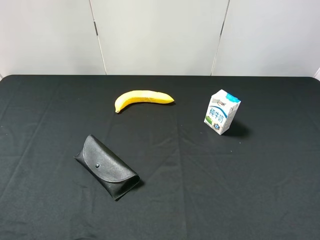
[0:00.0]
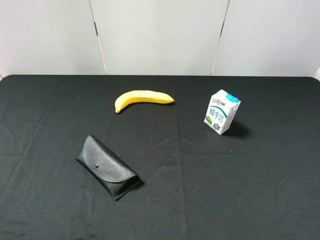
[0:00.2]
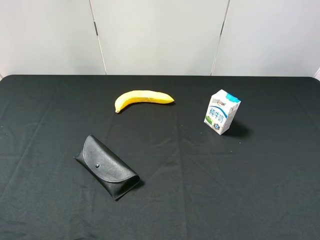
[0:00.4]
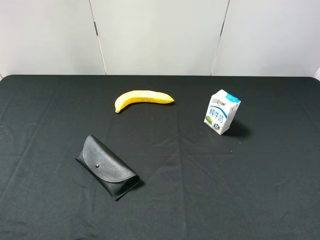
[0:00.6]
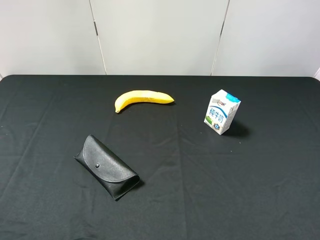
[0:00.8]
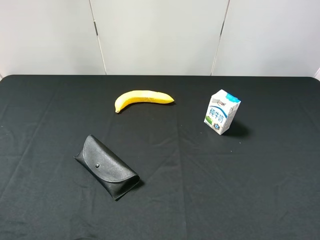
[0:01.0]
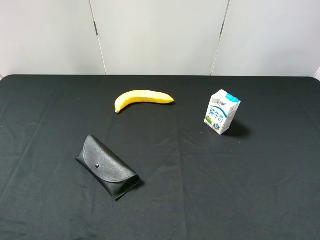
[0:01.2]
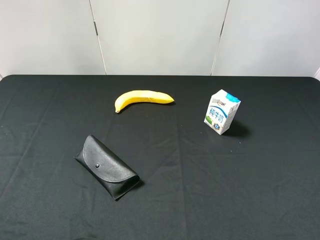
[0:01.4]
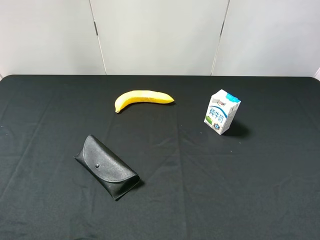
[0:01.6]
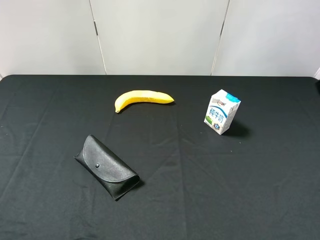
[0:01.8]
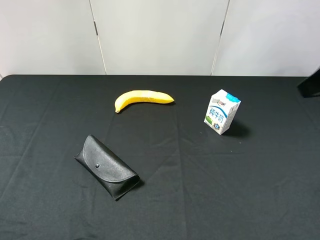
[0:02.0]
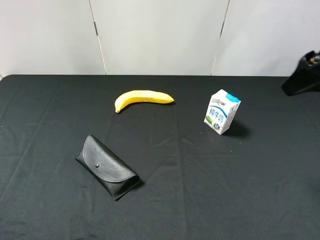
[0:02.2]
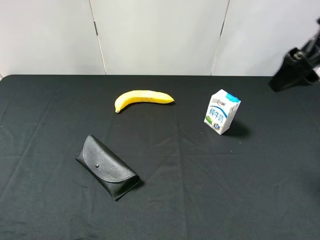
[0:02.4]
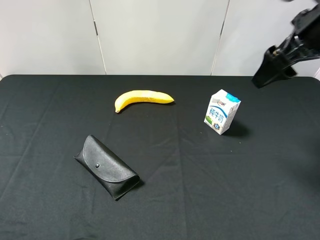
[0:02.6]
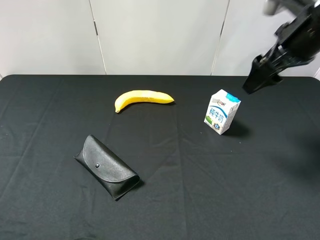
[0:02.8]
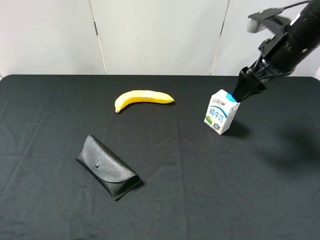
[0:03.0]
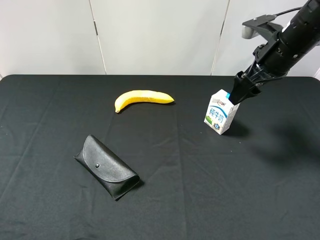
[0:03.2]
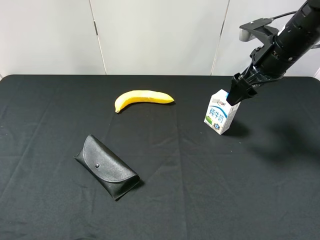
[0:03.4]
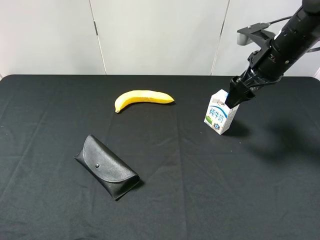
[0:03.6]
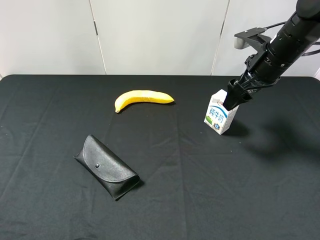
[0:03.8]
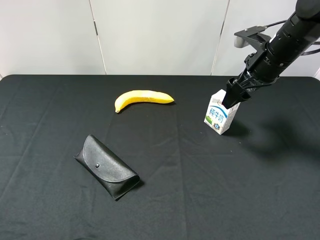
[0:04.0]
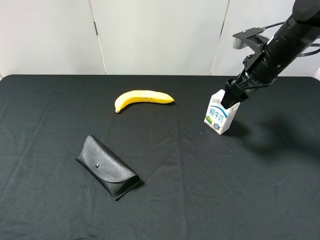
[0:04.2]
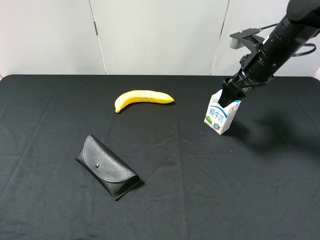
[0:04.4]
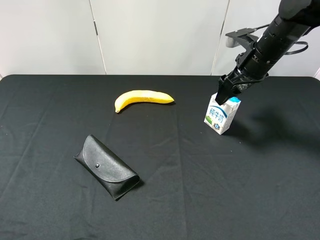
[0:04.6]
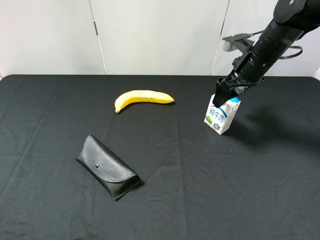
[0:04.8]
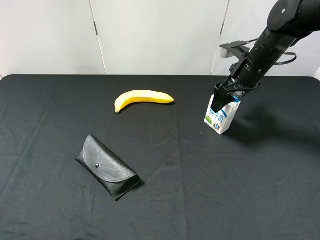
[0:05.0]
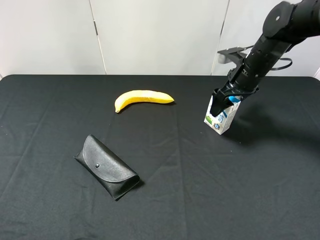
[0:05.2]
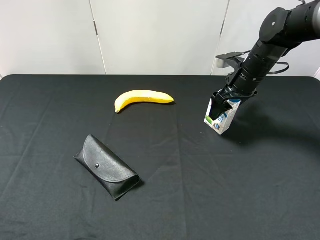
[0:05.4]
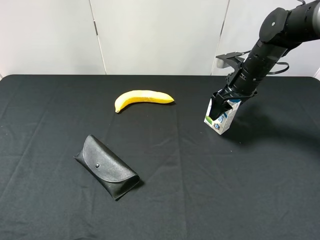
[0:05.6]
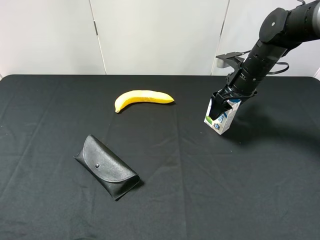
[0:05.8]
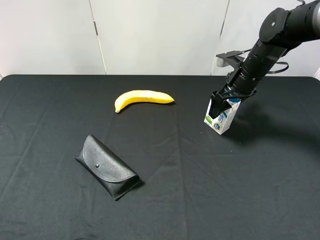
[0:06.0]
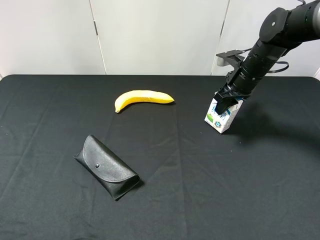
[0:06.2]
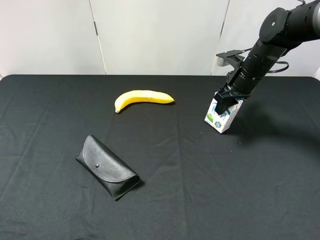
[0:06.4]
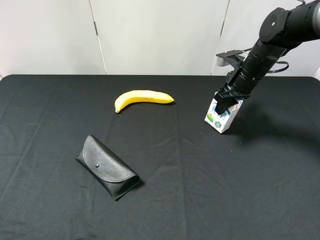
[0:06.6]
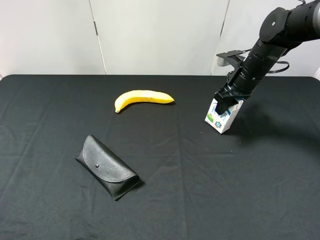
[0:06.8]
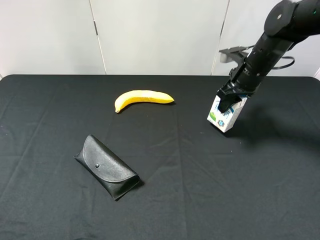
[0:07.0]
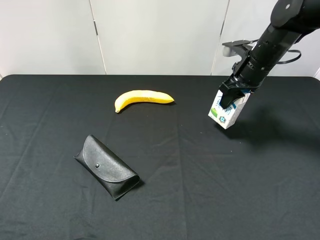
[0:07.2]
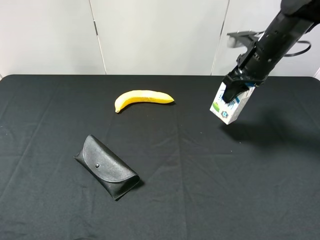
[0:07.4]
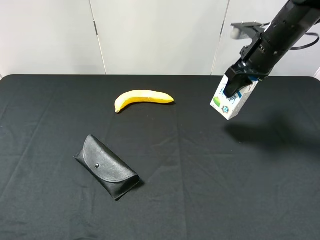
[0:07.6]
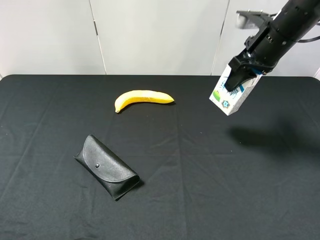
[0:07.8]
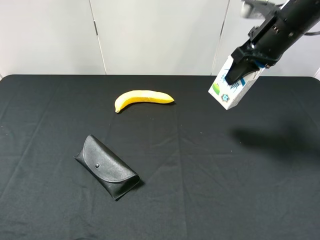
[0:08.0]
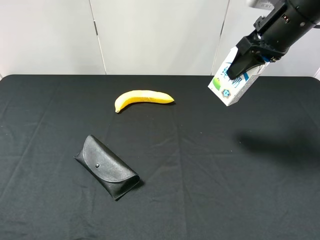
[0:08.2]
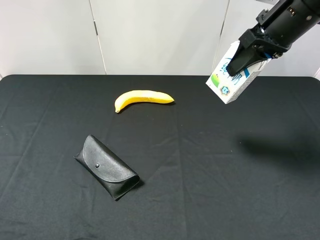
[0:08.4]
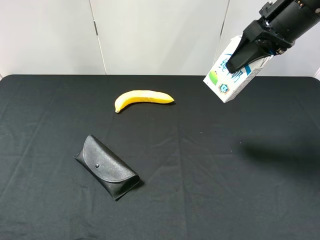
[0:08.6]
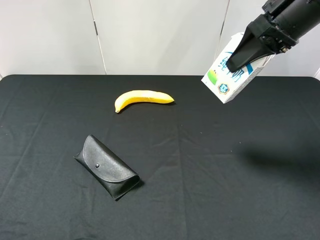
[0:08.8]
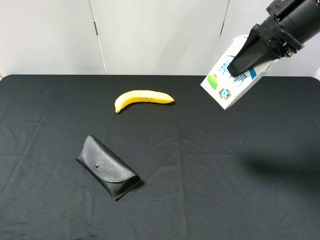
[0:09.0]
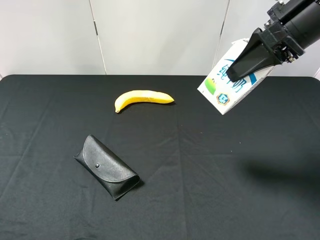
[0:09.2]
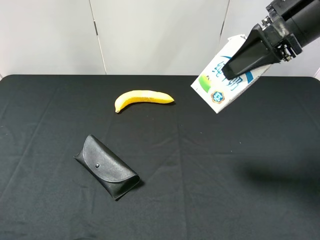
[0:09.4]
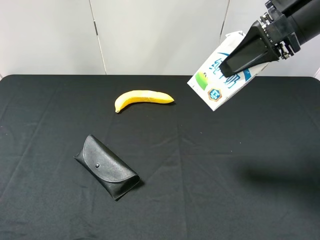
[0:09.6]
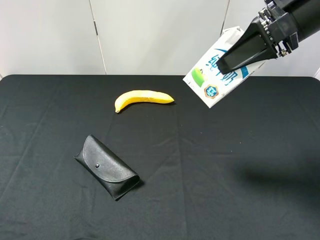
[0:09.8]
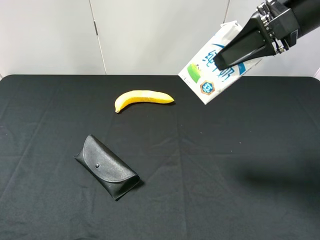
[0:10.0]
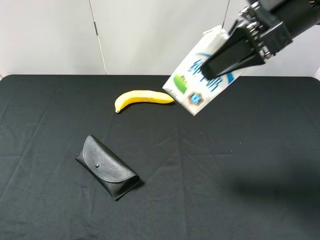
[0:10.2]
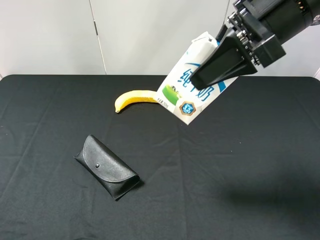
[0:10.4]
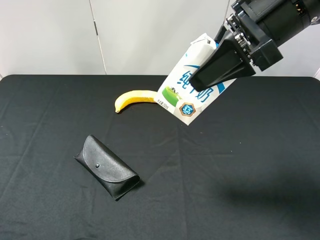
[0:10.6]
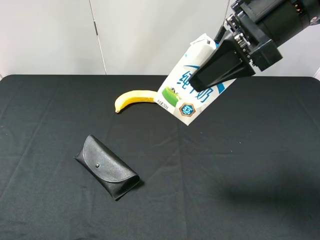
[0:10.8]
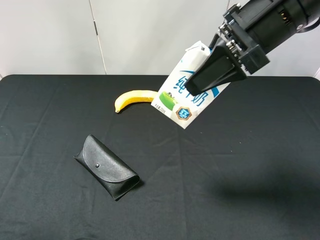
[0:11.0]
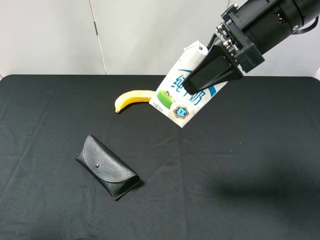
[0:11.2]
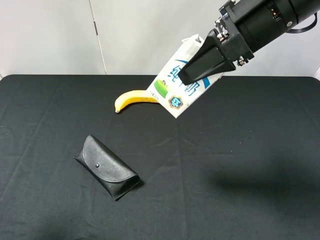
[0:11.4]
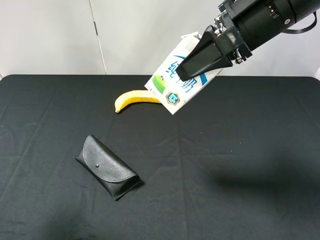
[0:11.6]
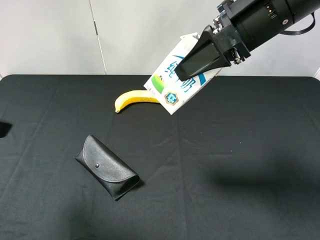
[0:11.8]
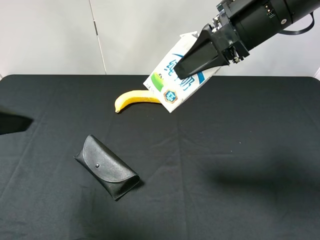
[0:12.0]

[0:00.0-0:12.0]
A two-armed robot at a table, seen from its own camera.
Task of the whole recording: use the right gripper to pick up the item and transfer it from the right gripper to the left gripper.
Step, 0:00.0 to 0:06.4: Use the right gripper to grab the milk on the right side of the table.
0:01.6 to 0:03.0: The right gripper goes approximately 25 cm forward and downward.
0:03.0 to 0:04.4: The right gripper shifts by about 5 cm.
0:04.4 to 0:06.0: The right gripper moves downward, approximately 5 cm.
0:06.0 to 0:07.6: The right gripper travels upward by roughly 10 cm, and closes its fingers.
0:07.6 to 0:09.0: The right gripper moves upward and backward, some 15 cm.
0:09.0 to 0:10.4: The right gripper shifts approximately 5 cm to the left.
0:10.4 to 0:12.0: The left gripper goes approximately 15 cm forward and to the right.

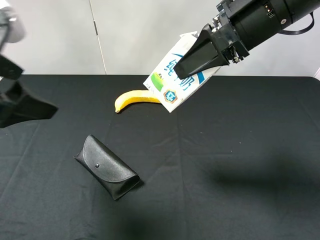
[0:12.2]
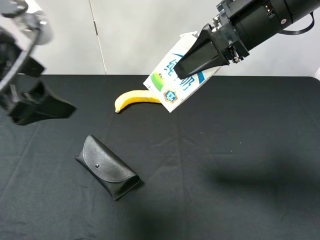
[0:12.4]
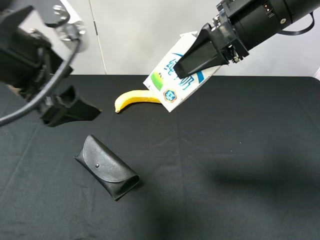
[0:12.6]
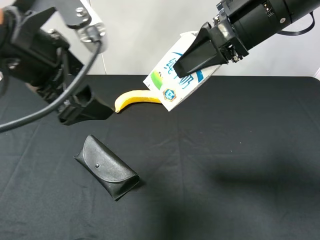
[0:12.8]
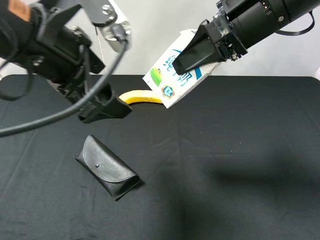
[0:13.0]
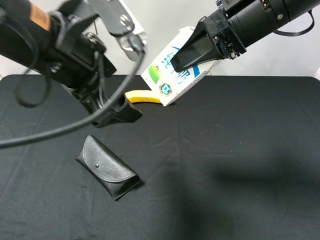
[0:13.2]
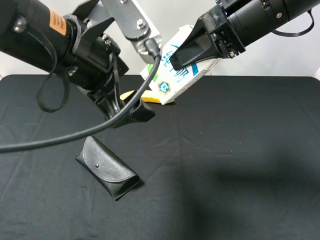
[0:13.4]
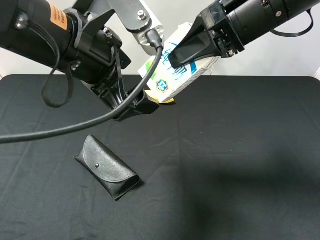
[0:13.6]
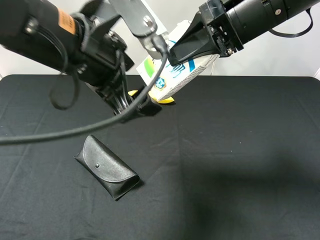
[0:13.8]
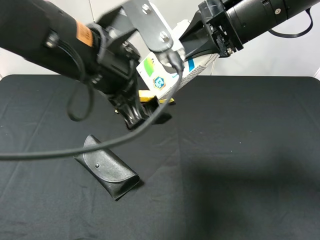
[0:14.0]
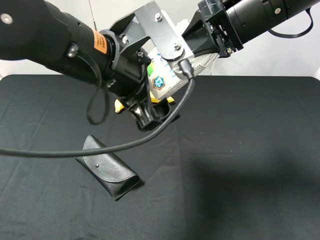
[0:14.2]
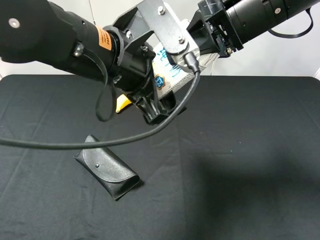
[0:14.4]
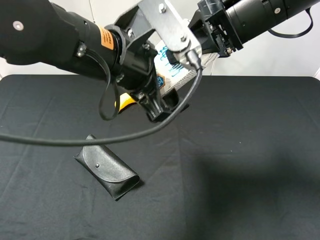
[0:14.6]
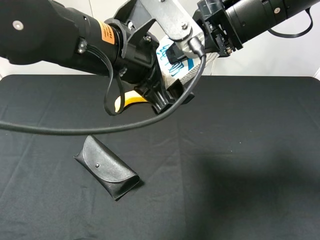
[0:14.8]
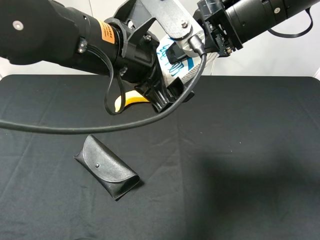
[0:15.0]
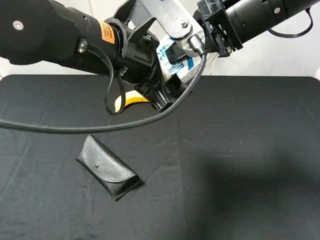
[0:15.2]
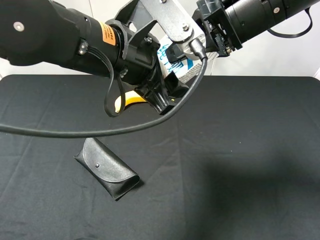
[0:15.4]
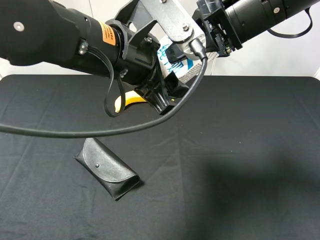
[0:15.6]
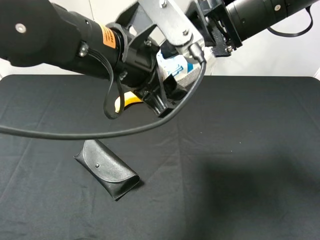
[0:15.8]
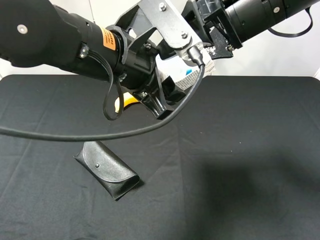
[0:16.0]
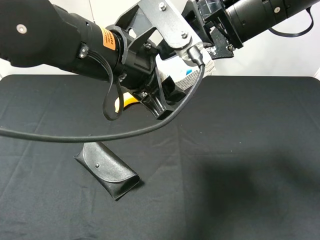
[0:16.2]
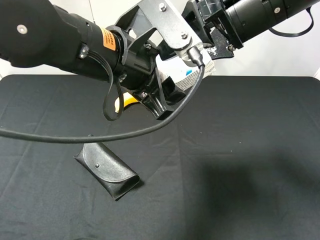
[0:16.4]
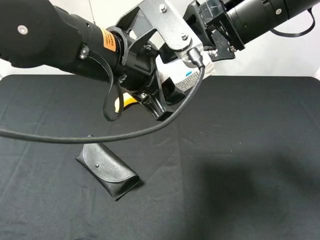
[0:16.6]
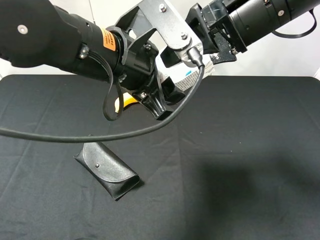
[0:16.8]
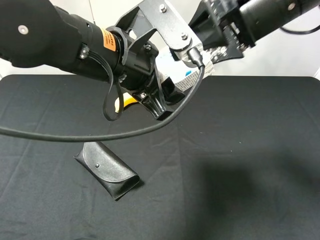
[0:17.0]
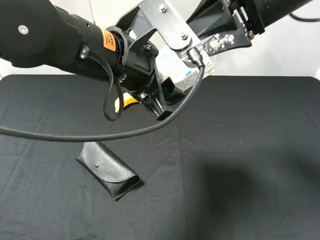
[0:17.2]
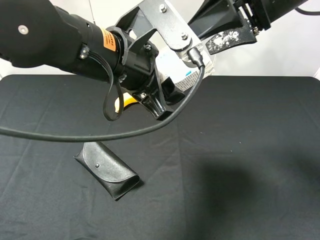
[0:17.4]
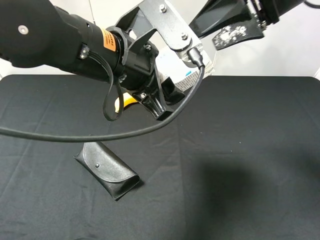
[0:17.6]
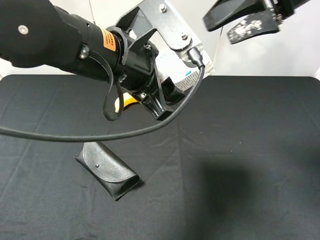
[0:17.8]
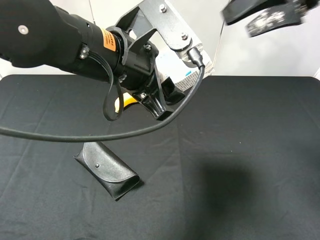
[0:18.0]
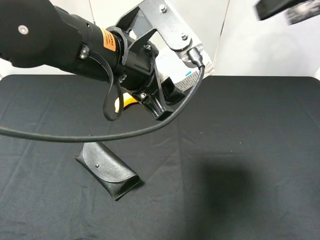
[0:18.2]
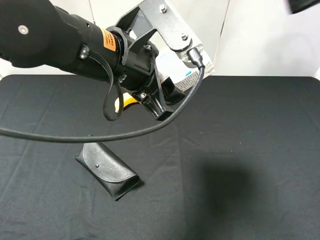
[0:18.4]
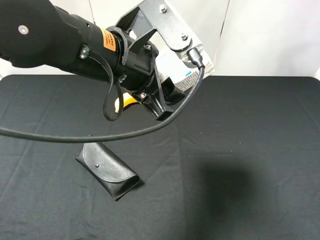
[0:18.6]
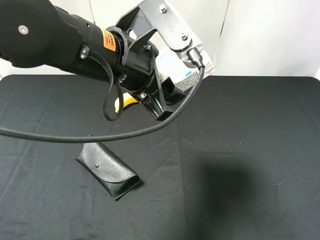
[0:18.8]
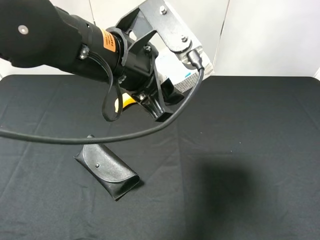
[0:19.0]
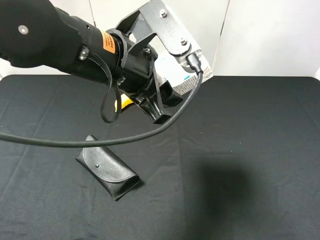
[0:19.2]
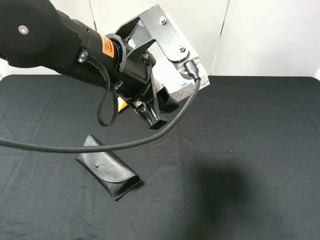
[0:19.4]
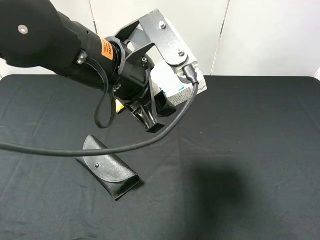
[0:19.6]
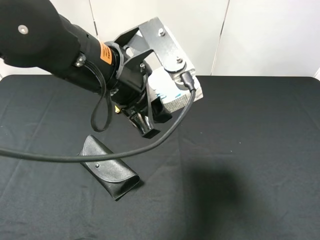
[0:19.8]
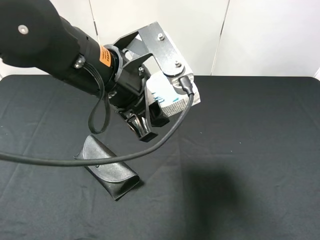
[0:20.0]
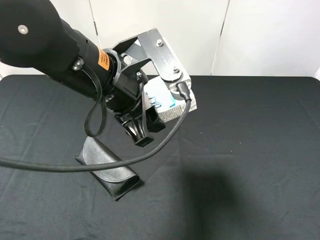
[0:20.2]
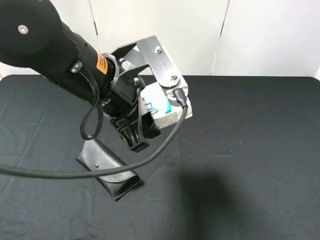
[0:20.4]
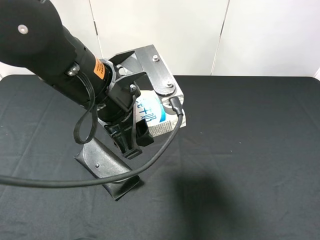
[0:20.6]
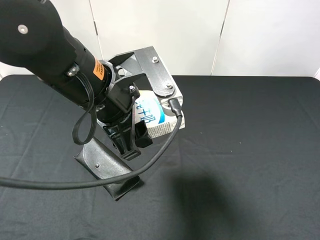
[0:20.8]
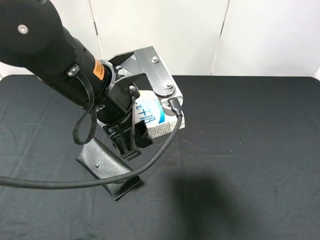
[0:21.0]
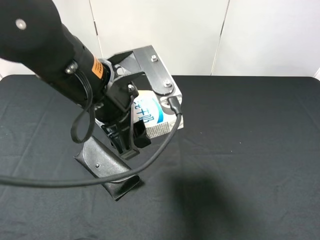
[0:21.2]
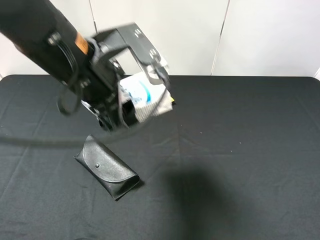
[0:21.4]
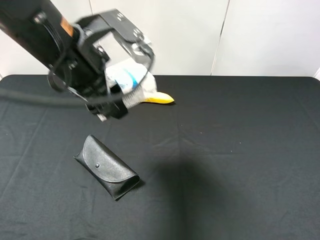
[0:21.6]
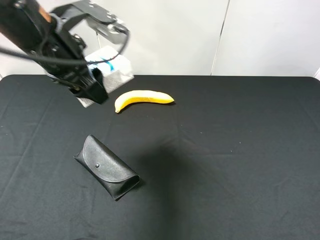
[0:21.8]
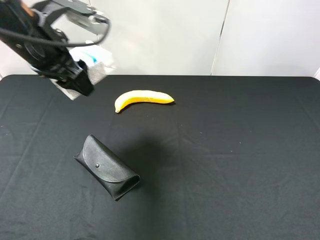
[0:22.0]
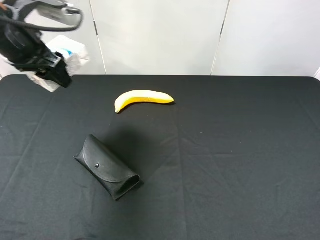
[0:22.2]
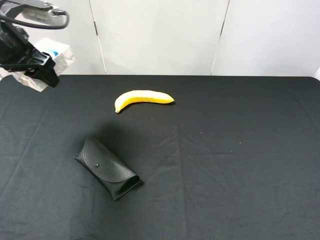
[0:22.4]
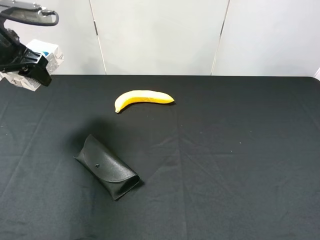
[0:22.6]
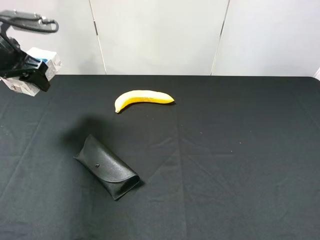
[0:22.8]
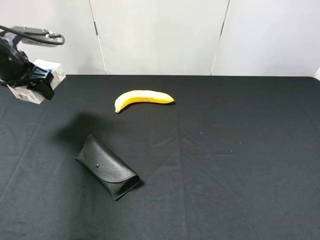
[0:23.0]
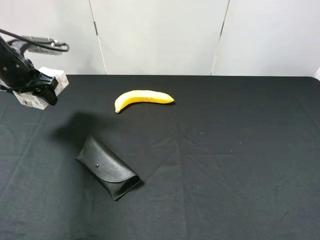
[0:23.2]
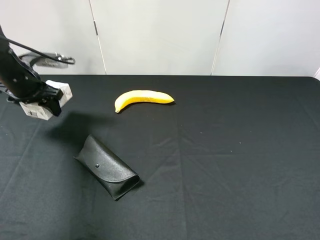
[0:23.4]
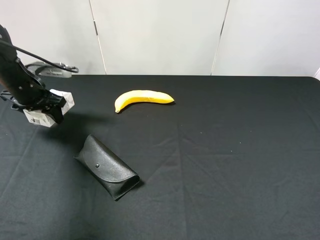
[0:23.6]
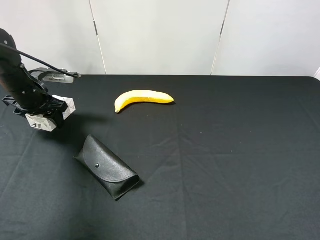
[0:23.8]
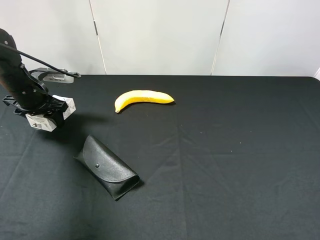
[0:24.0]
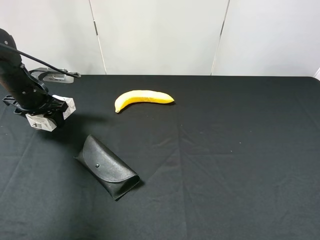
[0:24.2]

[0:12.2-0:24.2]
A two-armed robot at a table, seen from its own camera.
Task of the whole recording: use the right gripper to pick up the item and transfer it from the right gripper to the left gripper.
Step, 0:12.2 to 0:15.8: Pass the milk to the left gripper.
0:12.2 to 0:13.8: The left gripper moves to the right, some 15 cm.
0:13.8 to 0:15.2: The left gripper closes its fingers.
0:15.2 to 0:16.6: The right gripper opens its fingers.
0:16.6 to 0:18.2: The right gripper heads to the right and upward, covering approximately 15 cm.
0:18.2 to 0:19.8: The right gripper shifts approximately 25 cm backward and downward.
0:19.8 to 0:21.2: The grippers make only small movements.
0:21.2 to 0:22.6: The left gripper heads to the left and forward, covering roughly 25 cm.
0:22.6 to 0:24.2: The left gripper is displaced downward by approximately 15 cm.
